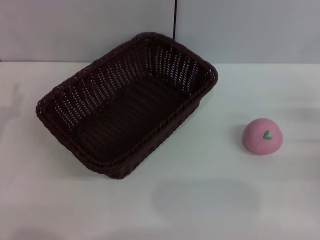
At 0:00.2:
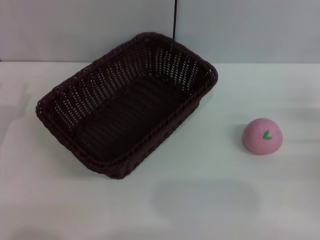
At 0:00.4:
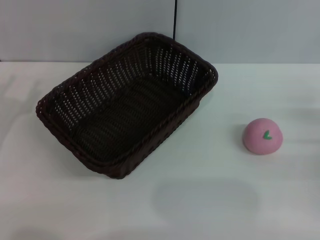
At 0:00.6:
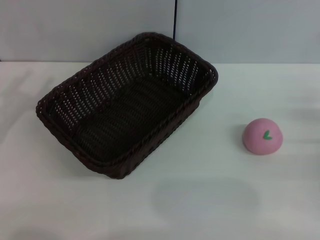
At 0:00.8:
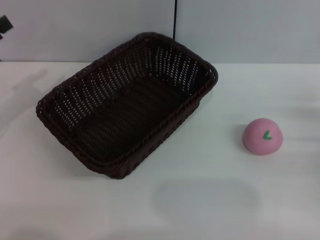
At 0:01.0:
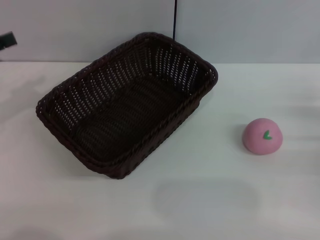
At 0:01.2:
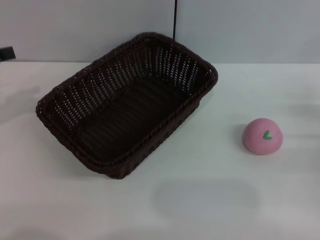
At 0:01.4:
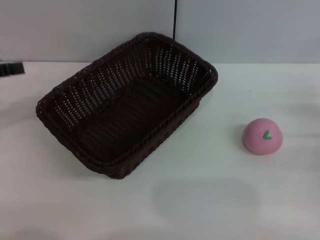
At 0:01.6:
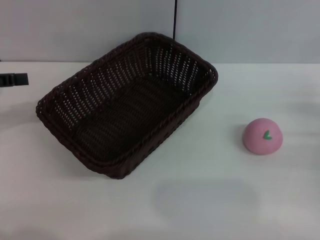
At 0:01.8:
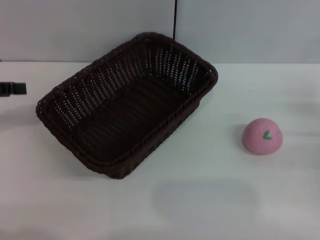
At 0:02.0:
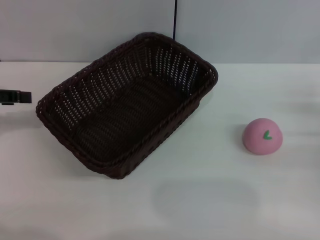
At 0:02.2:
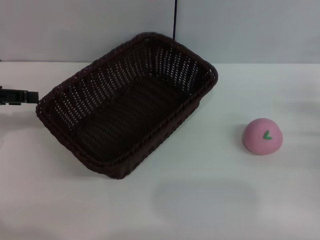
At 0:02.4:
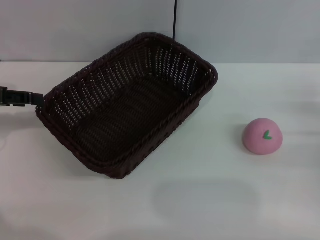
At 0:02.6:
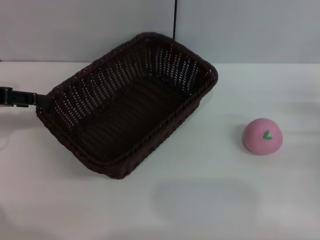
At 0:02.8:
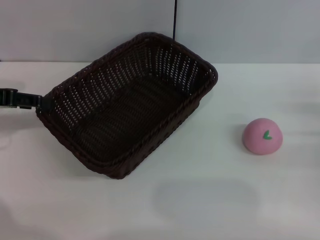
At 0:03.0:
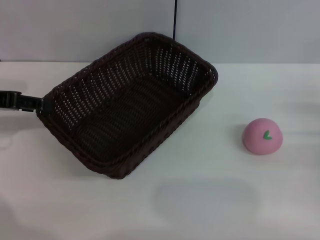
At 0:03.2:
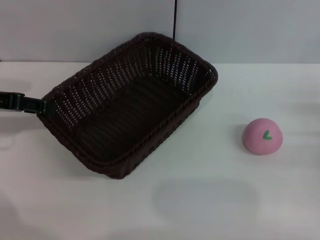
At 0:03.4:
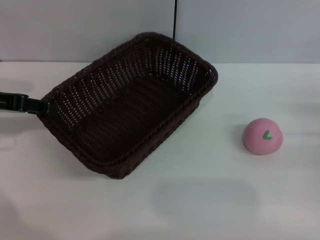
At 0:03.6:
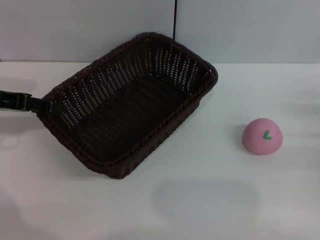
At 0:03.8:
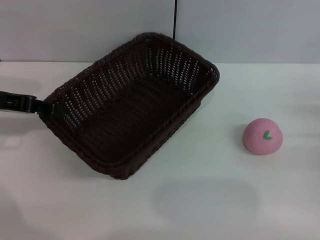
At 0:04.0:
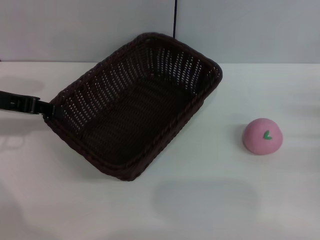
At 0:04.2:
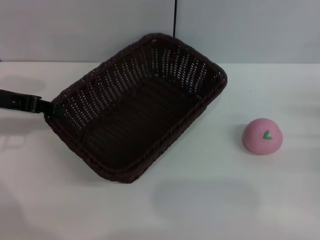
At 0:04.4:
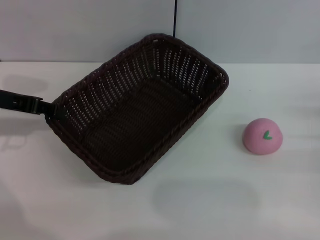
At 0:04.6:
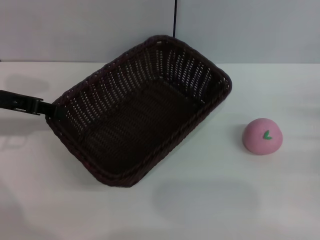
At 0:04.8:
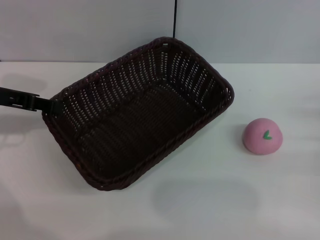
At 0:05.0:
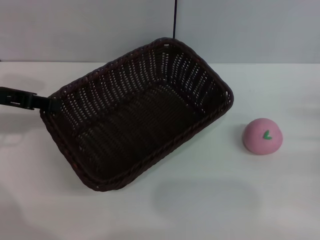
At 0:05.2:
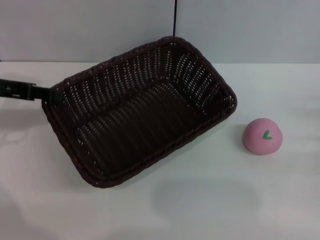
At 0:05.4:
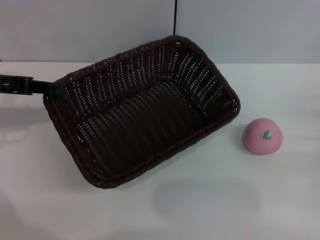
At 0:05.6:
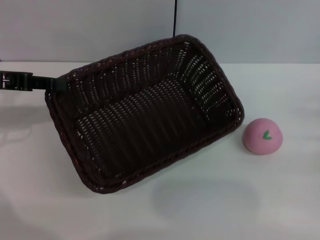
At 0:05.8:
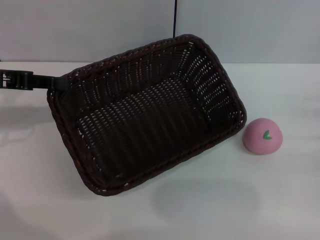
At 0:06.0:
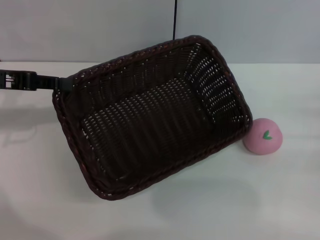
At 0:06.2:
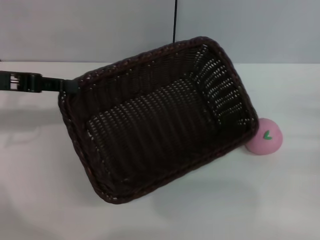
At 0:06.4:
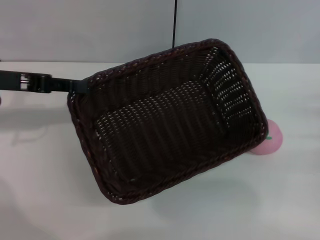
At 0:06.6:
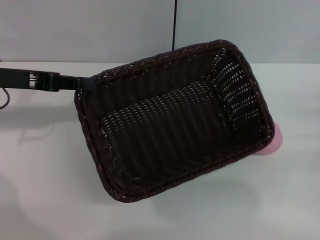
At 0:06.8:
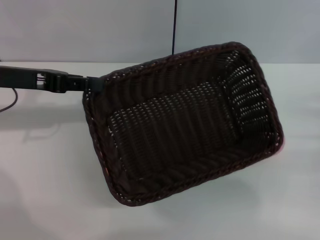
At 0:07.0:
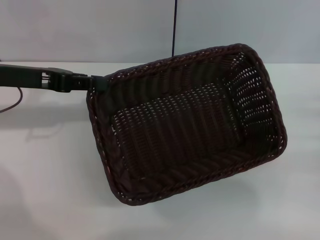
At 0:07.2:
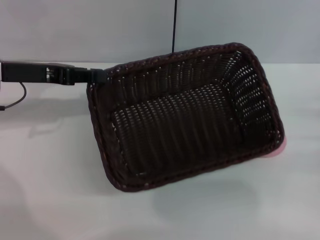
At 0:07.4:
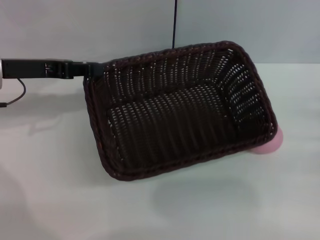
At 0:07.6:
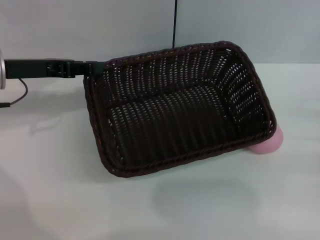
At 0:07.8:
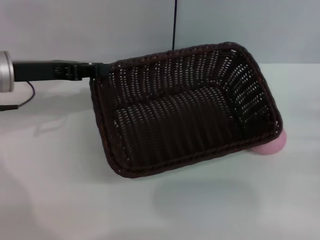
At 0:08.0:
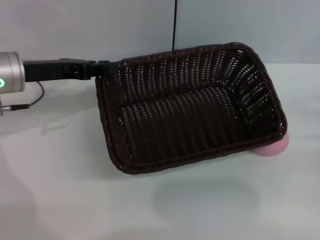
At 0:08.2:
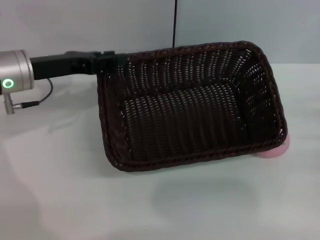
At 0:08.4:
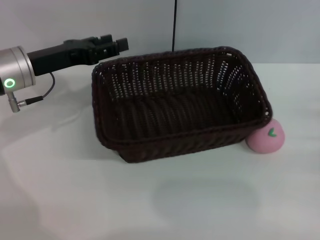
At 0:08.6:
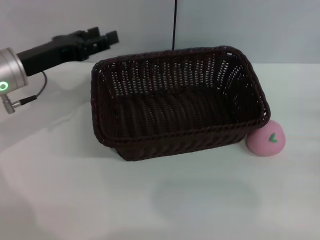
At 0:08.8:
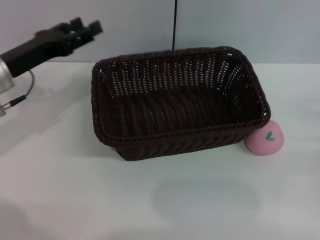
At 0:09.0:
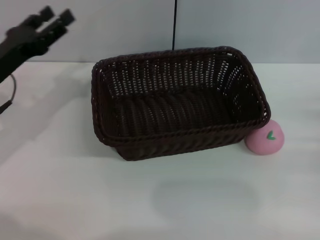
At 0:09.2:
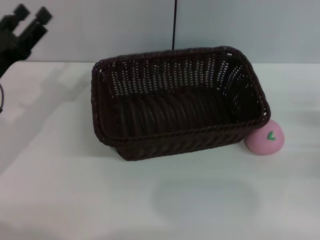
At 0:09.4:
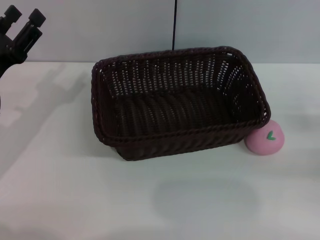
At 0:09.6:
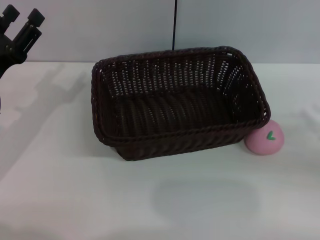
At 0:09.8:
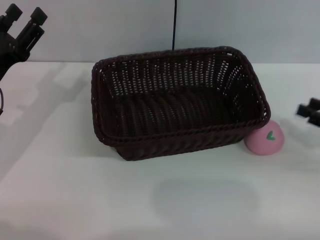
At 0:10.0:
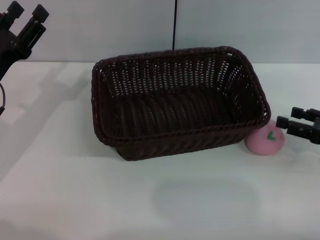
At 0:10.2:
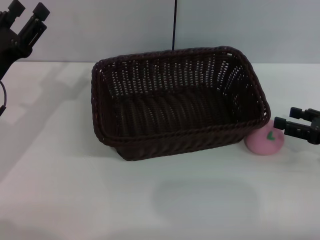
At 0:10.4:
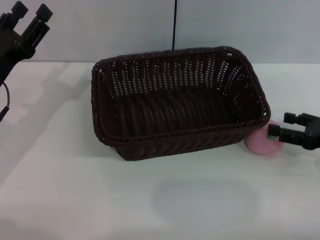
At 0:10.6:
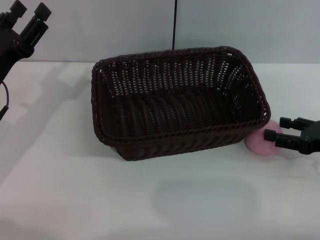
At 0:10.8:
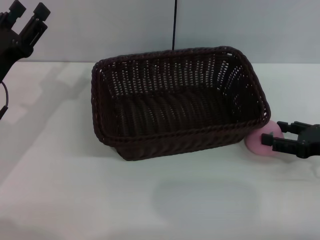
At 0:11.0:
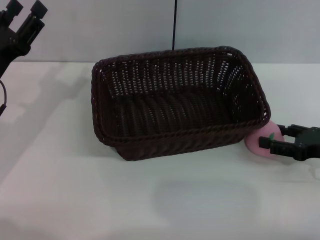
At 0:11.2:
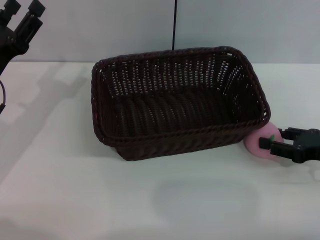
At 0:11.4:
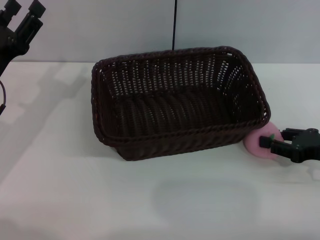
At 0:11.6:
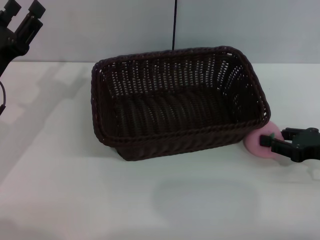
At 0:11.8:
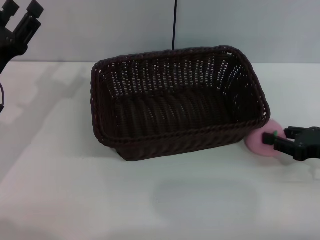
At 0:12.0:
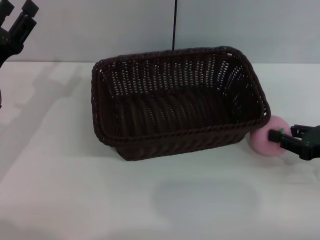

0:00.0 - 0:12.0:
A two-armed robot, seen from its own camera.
Step, 0:00.0 - 0:06.2: Pick up the dark basket with the left gripper.
0:01.6 - 0:03.0: There are only small adjustments of the grippers.
0:03.0 - 0:04.4: The left gripper closes up.
0:04.4 - 0:06.0: There are only small adjustments of the grippers.
0:06.0 - 0:07.6: The left gripper shifts by some 5 cm.
0:07.6 - 0:09.0: The left gripper moves about 5 cm, and opens up.
0:09.0 - 0:10.4: The right gripper shifts by approximately 5 cm, and opens up.
0:10.4 - 0:12.0: The right gripper closes.

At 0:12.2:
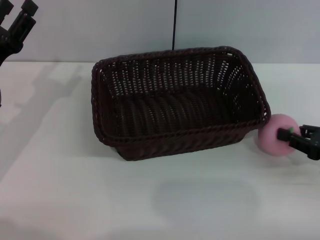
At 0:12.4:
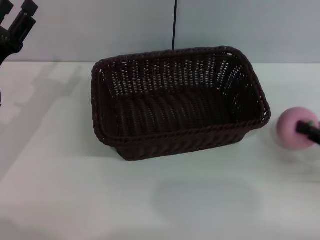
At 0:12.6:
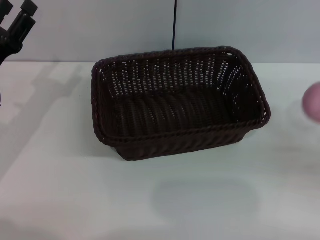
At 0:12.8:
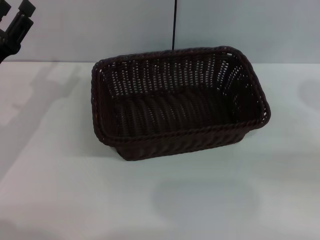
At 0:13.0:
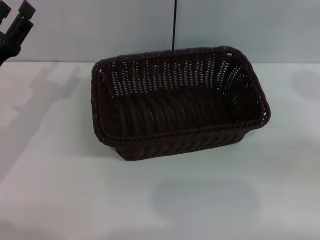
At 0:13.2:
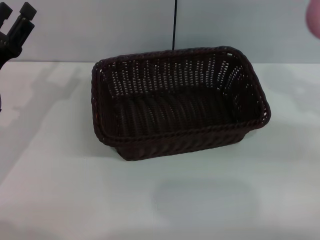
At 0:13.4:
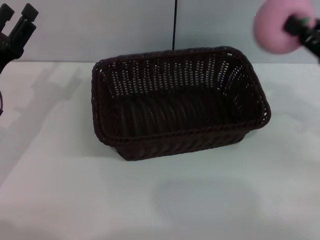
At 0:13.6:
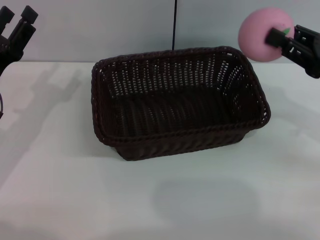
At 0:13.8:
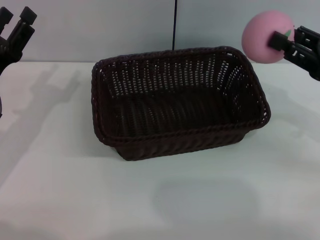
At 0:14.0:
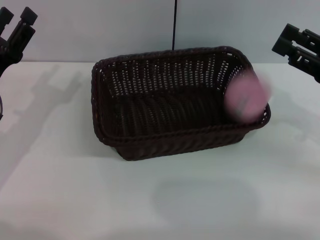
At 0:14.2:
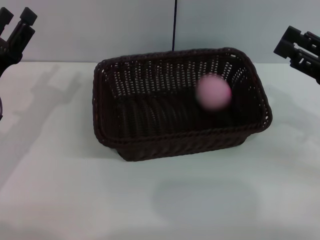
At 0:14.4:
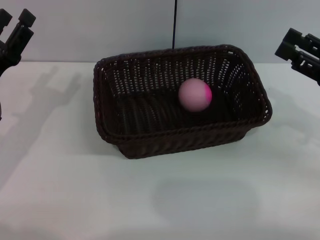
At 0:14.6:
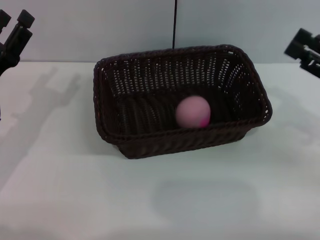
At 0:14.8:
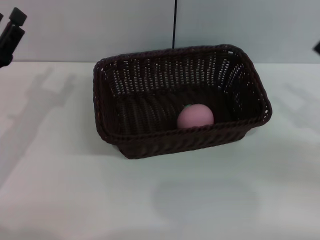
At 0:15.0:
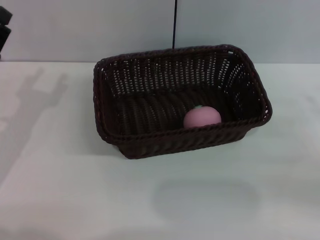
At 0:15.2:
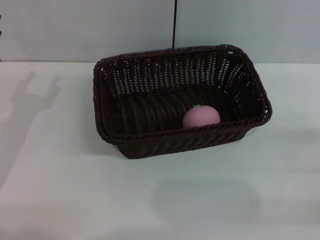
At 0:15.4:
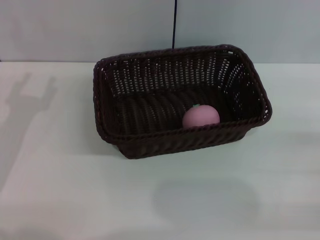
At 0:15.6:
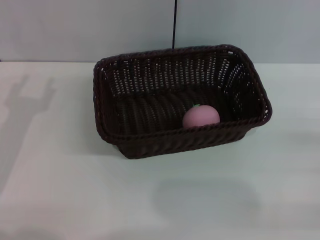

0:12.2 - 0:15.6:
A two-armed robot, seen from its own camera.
Step, 0:13.8 - 0:15.2: Place the peach into the basket with the left gripper.
0:12.2 - 0:13.8: The right gripper heads upward, covering roughly 5 cm.
0:13.8 - 0:15.6: The right gripper shifts approximately 15 cm backward, to the right and downward, and opens its fingers.
